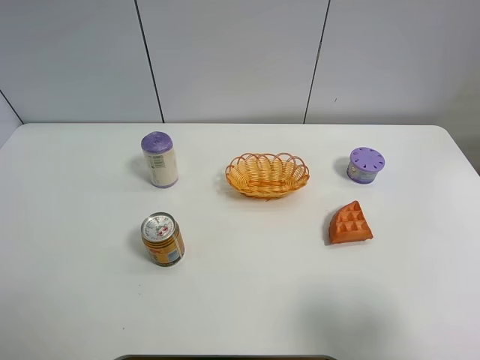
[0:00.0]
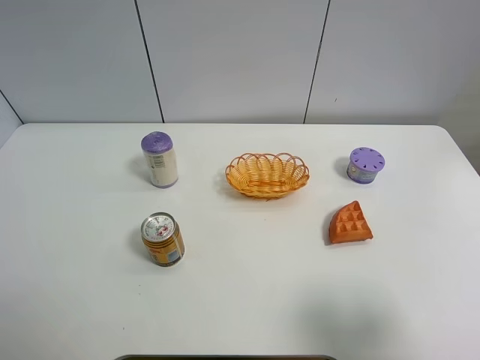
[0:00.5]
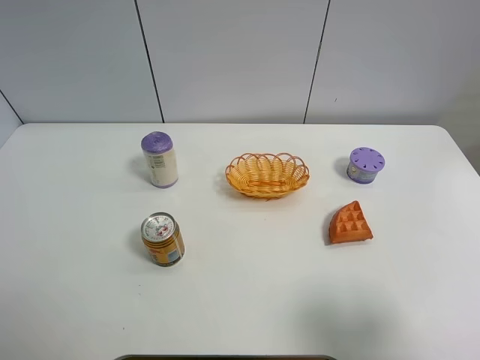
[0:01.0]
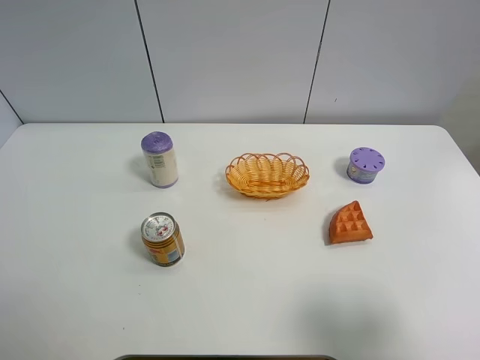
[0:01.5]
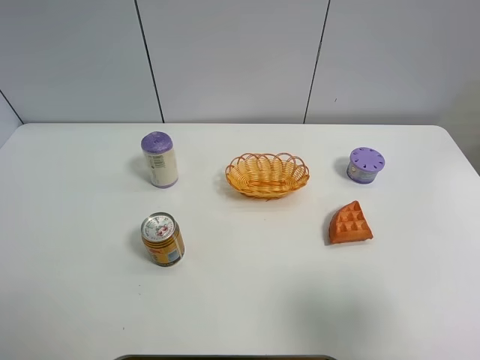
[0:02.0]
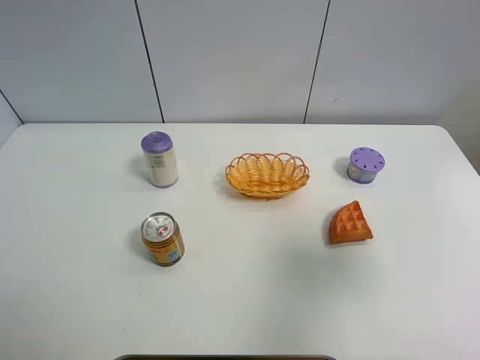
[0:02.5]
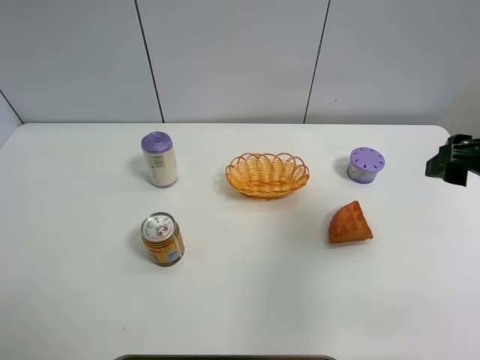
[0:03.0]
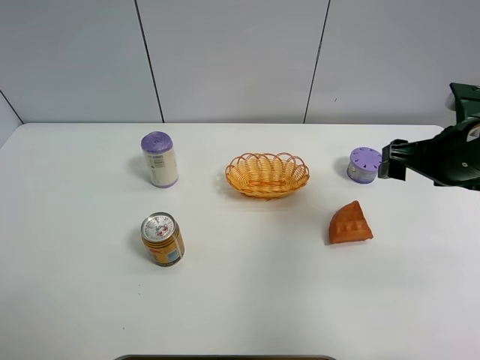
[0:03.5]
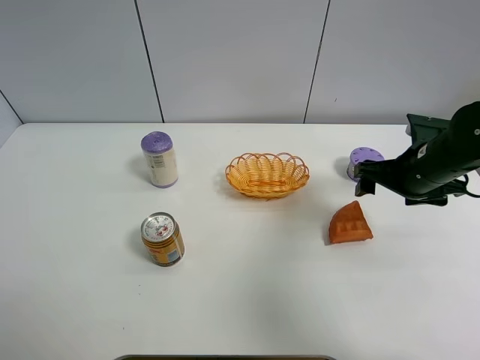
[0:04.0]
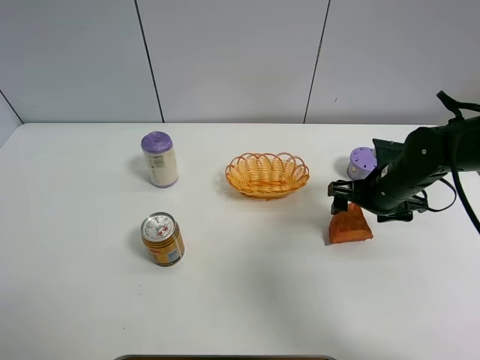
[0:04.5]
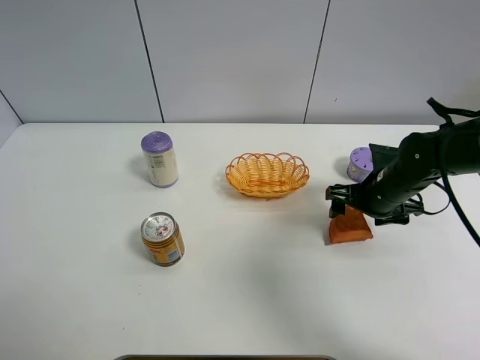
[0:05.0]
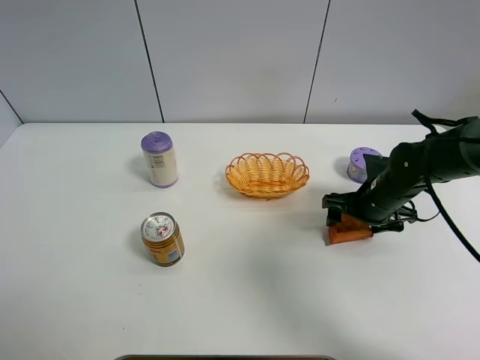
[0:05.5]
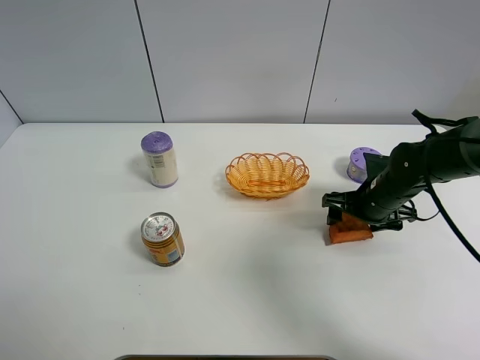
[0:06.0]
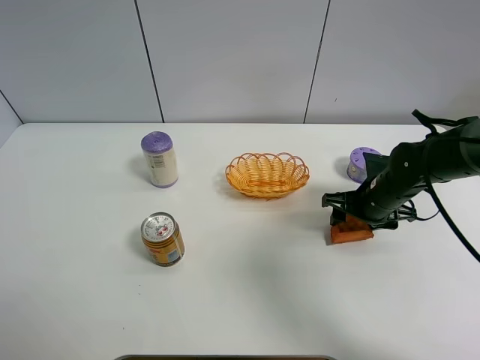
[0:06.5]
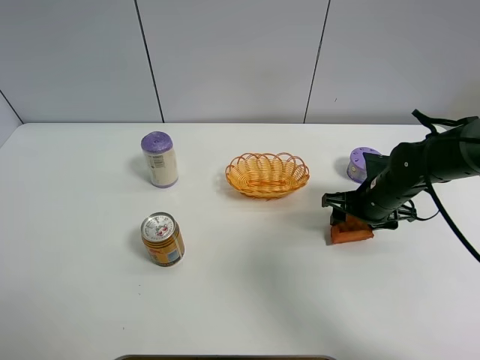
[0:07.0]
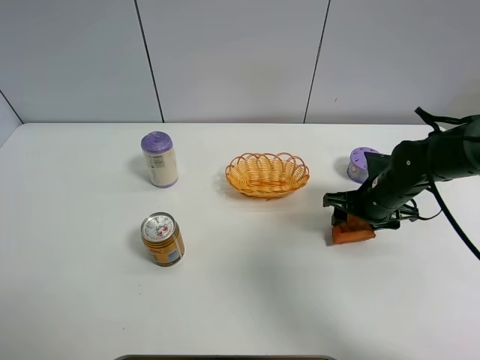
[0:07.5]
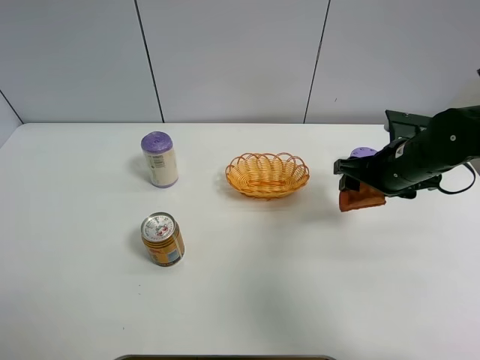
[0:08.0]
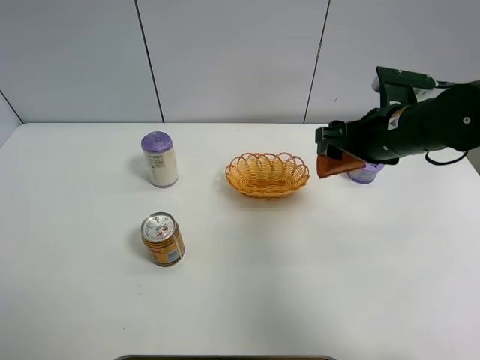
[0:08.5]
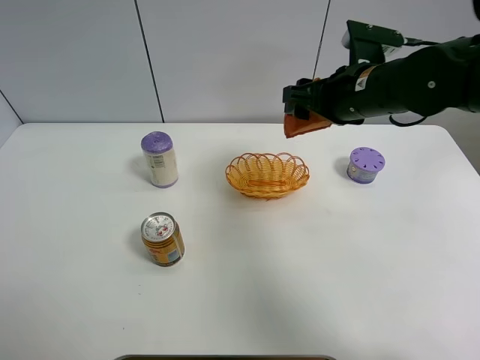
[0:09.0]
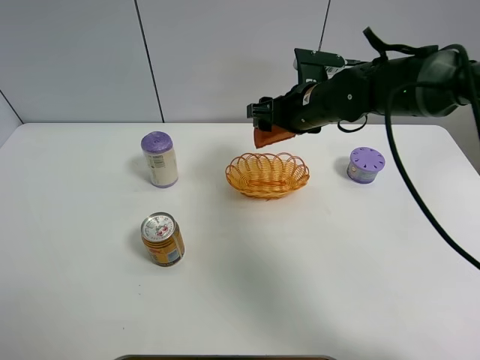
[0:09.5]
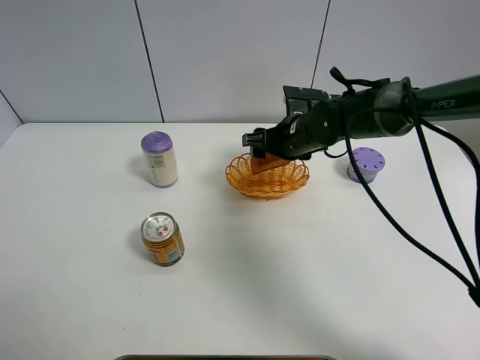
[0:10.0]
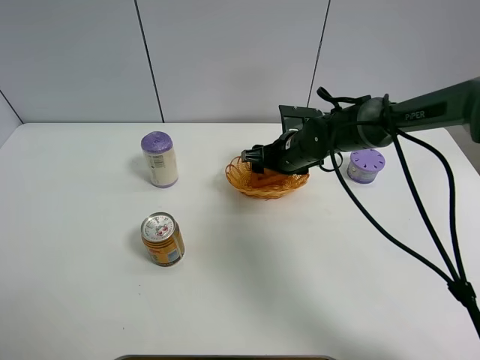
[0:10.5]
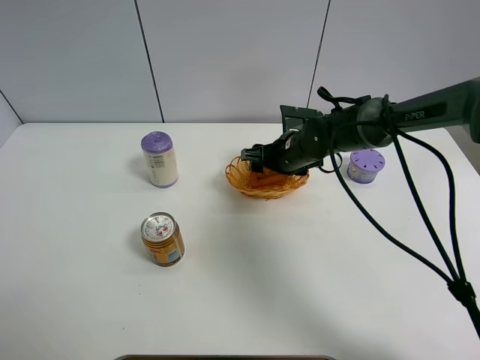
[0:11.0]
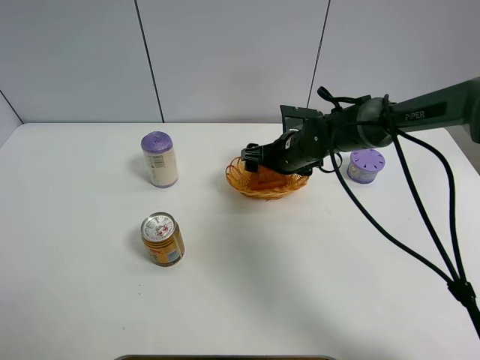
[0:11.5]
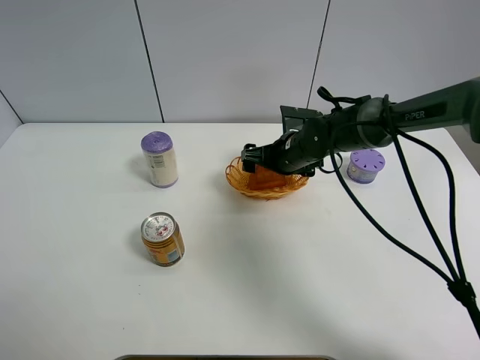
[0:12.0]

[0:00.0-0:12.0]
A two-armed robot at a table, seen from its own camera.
Task of the whole recording: Put the bakery in the basket.
Step, 0:00.0 to 0:06.0: Grasp the bread with right gripper.
0:02.0 to 0:04.0: The right gripper is displaced forward and downward by approximately 30 cm.
0:04.0 to 0:06.0: The right gripper goes some 10 cm downward.
0:06.0 to 0:08.0: The right gripper shifts about 10 cm upward, and closes.
0:08.0 to 0:10.0: The right gripper heads to the left and forward, covering roughly 15 cm.
0:10.0 to 0:12.0: The right gripper opens its fingers.

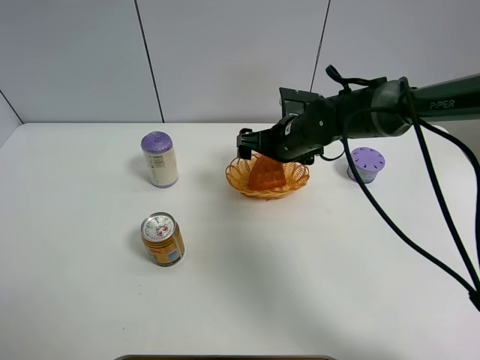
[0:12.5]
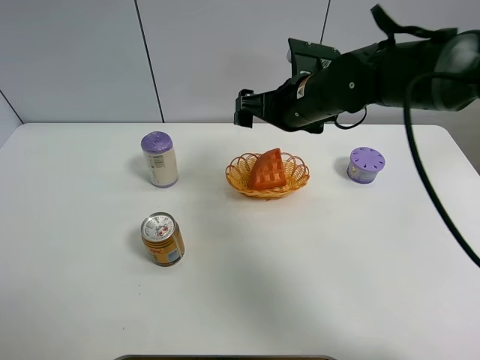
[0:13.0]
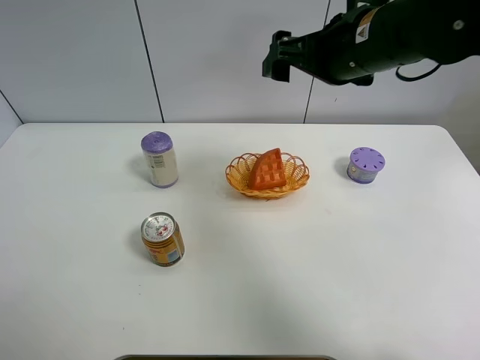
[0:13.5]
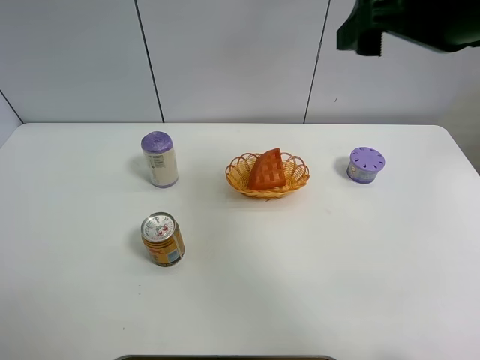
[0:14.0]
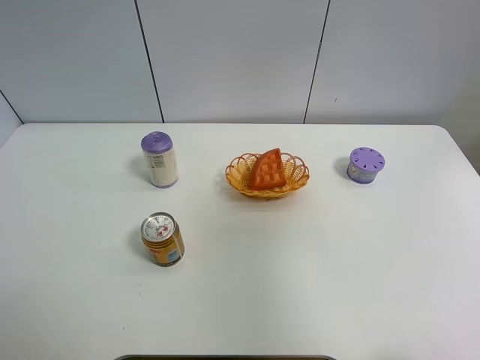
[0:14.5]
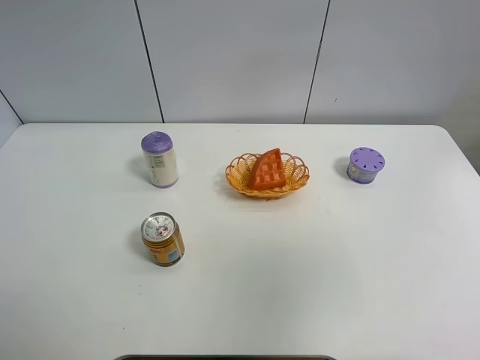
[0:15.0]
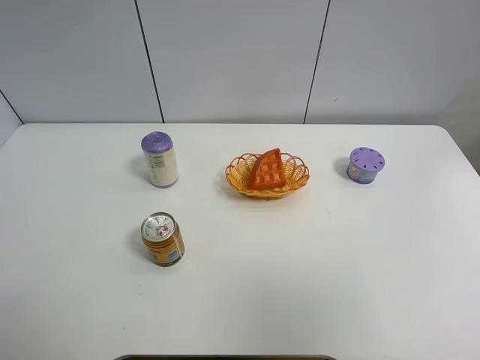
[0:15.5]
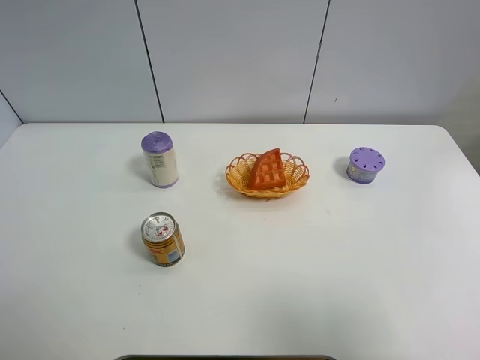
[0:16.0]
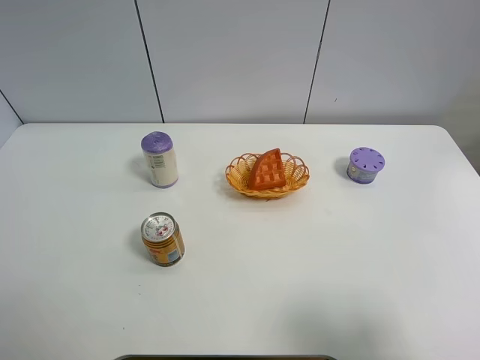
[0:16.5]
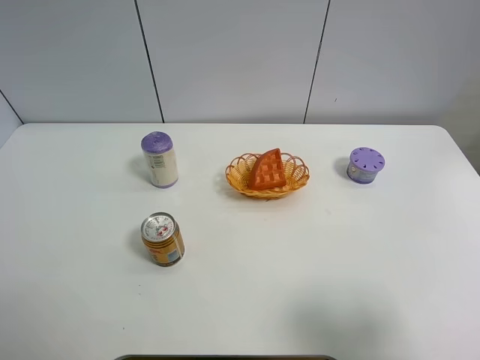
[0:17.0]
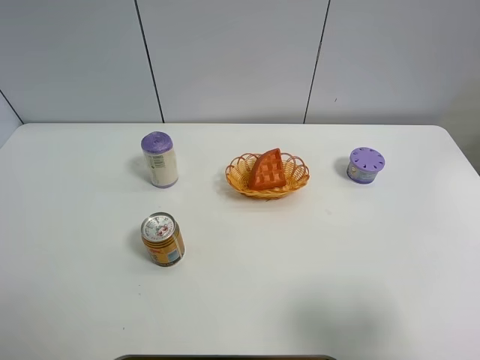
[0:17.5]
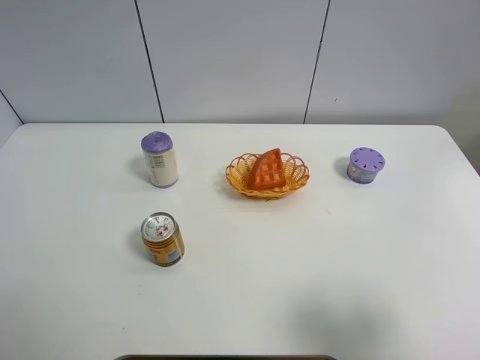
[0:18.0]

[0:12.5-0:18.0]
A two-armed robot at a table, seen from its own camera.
Task of the whole recording: Put the bakery in the basket.
0:12.5 to 0:14.5: The right gripper goes roughly 40 cm upward, backward and to the right.
0:14.5 to 0:16.0: The right gripper moves backward and downward, some 20 cm.
0:16.0 to 0:18.0: The right gripper heads downward, covering some 10 cm.

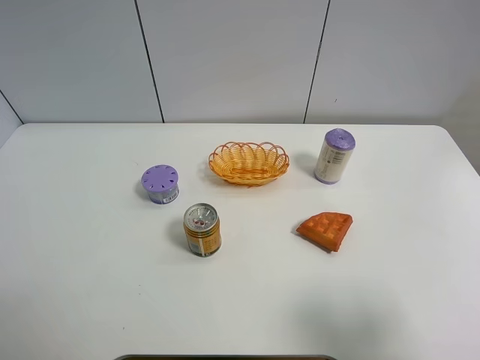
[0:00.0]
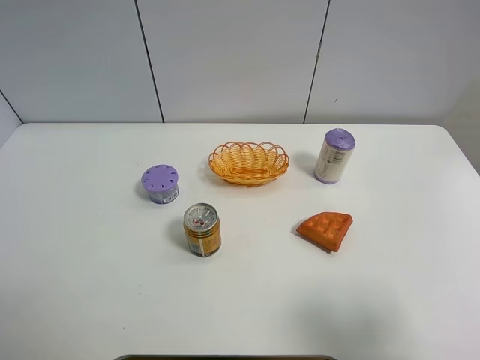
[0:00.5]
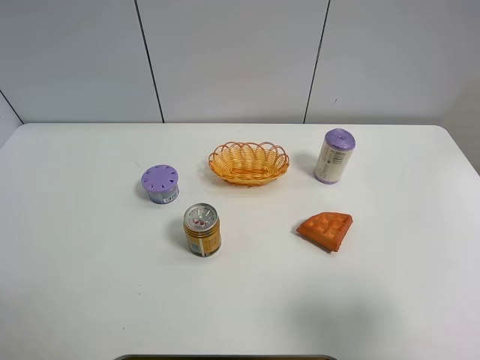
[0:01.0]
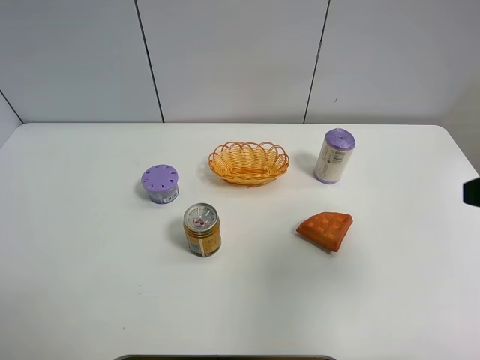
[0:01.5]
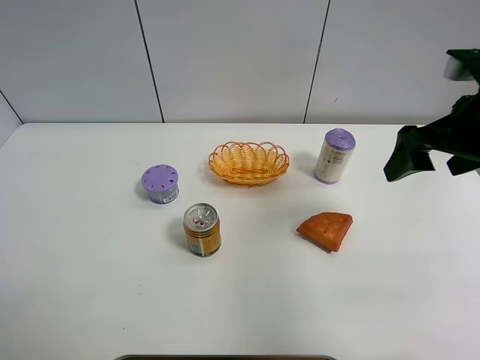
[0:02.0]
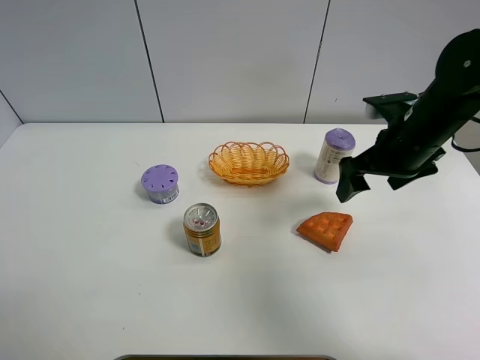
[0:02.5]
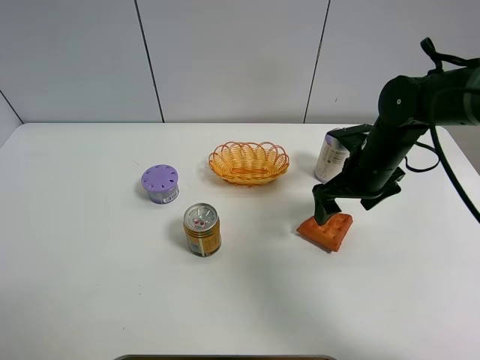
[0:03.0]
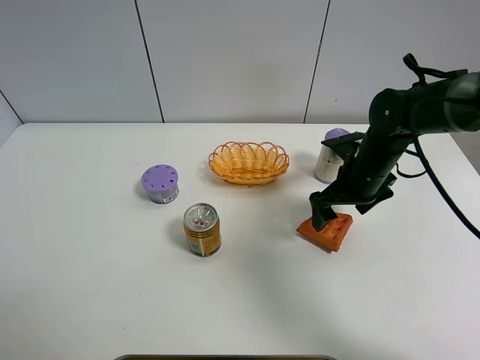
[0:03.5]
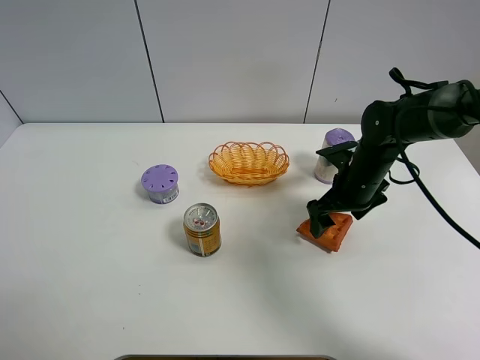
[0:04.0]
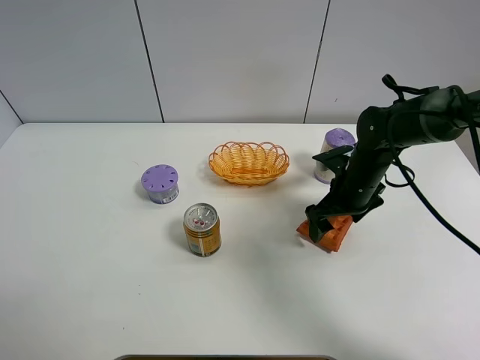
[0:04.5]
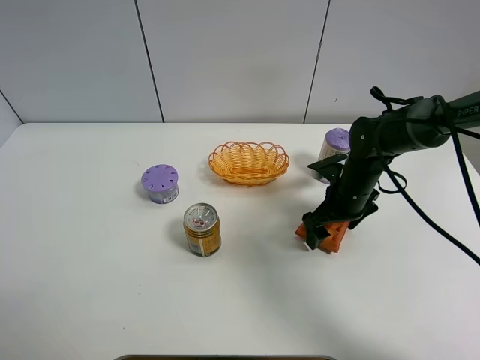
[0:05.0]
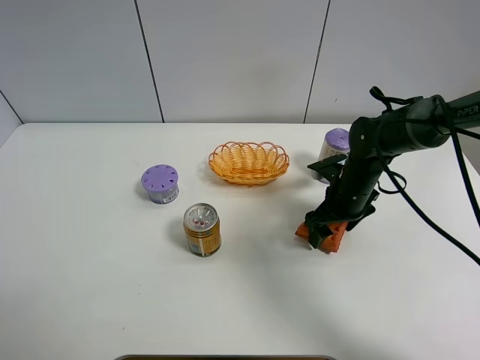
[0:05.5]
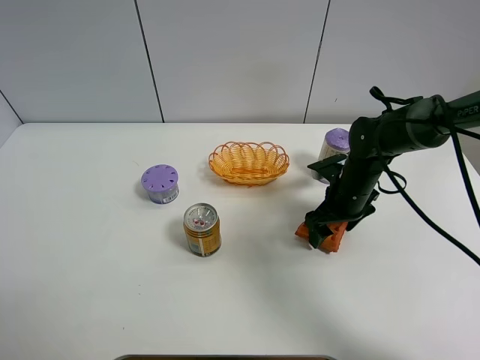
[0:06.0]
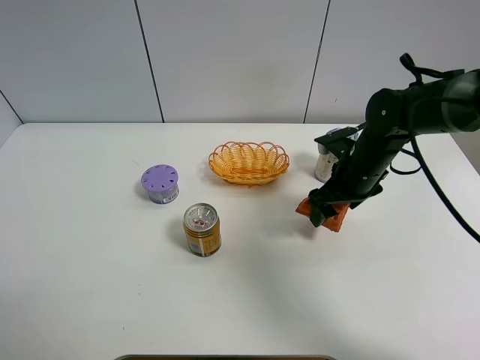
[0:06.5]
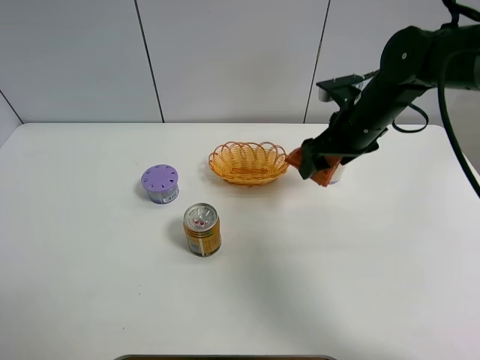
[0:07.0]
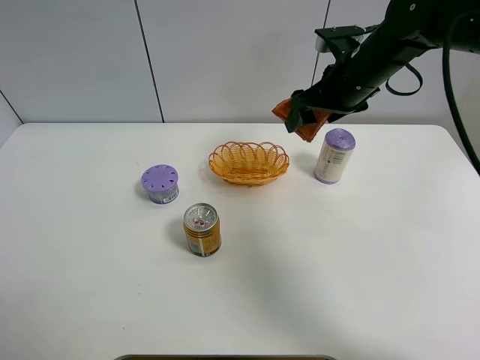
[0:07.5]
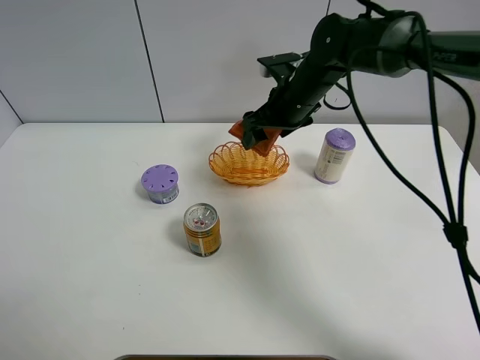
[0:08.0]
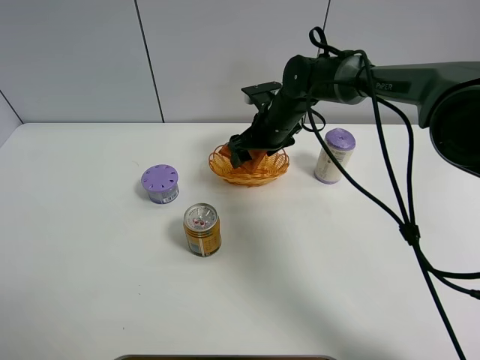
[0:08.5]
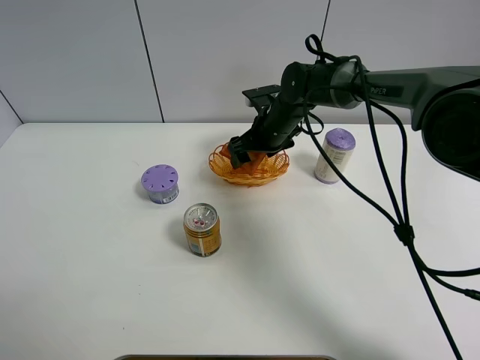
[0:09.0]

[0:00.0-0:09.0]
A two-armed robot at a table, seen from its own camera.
Task of the whole recording: Put the bakery in the basket.
Step, 0:00.0 to 0:05.0: Grasp the bread with right gripper.
0:00.0 to 0:02.0: The right gripper heads forward, covering roughly 25 cm.
0:02.0 to 0:04.5: The right gripper goes some 20 cm downward and forward.
0:04.5 to 0:07.0: The right gripper goes approximately 10 cm upward, and closes its fingers.
0:07.0 to 0:09.0: The right gripper moves to the left, forward and downward, approximately 15 cm.
